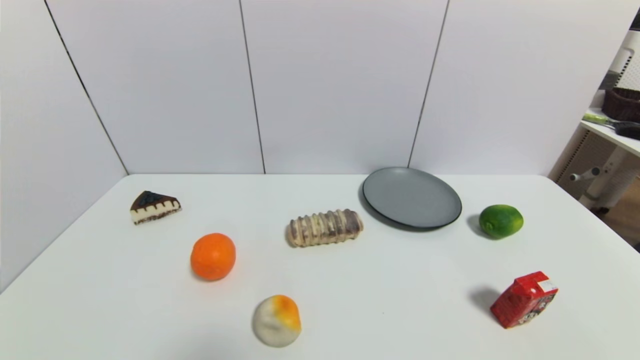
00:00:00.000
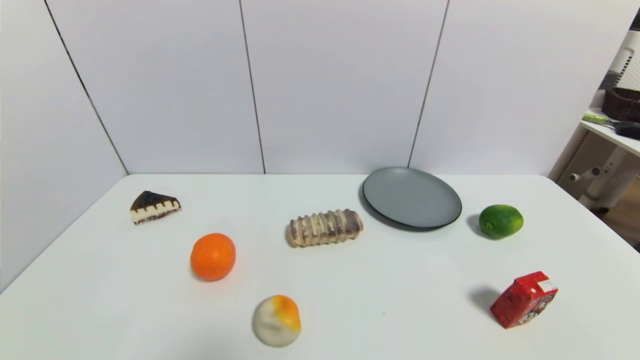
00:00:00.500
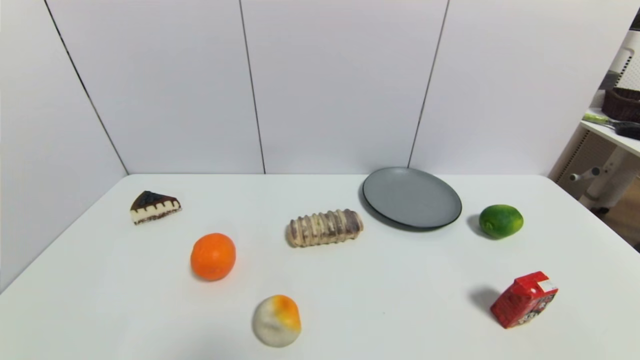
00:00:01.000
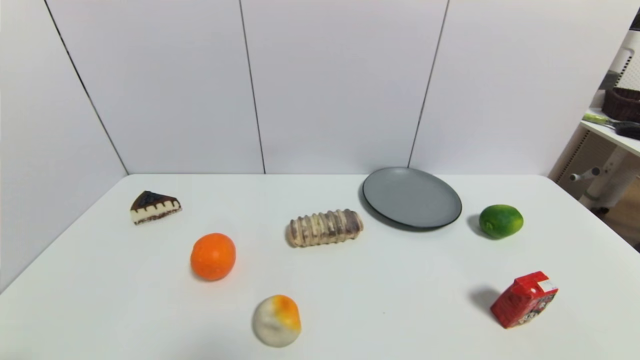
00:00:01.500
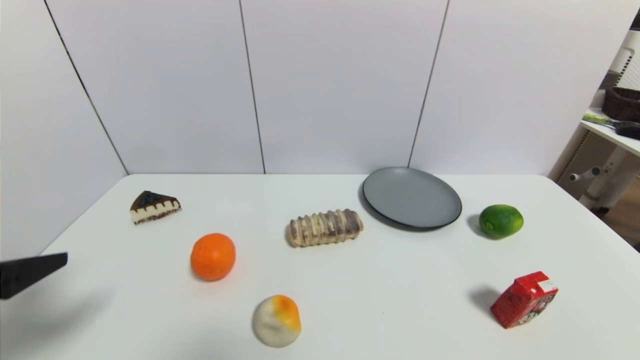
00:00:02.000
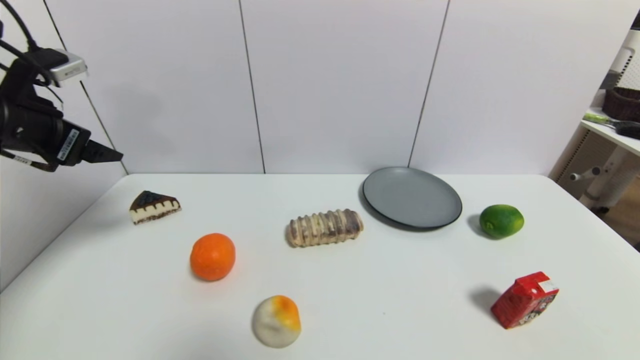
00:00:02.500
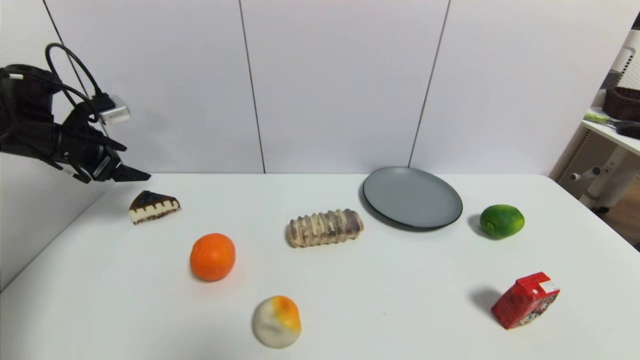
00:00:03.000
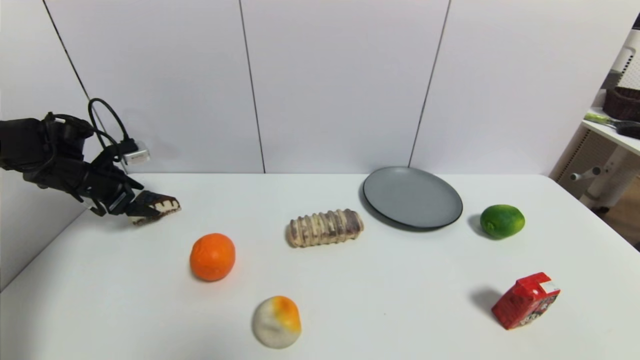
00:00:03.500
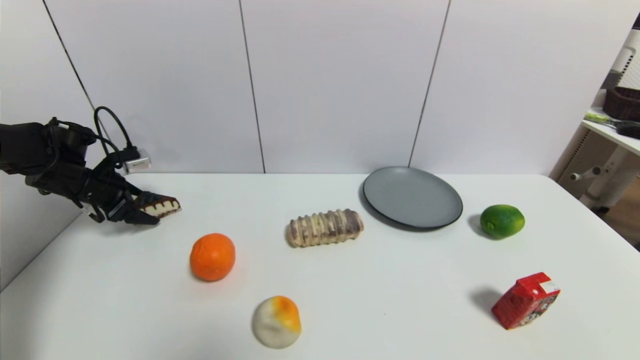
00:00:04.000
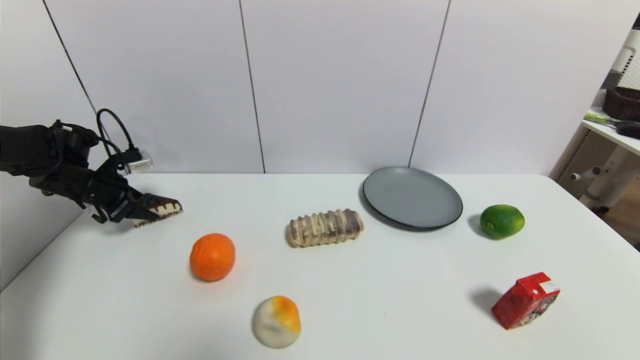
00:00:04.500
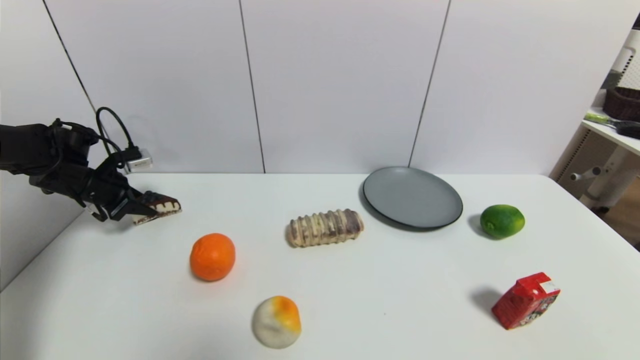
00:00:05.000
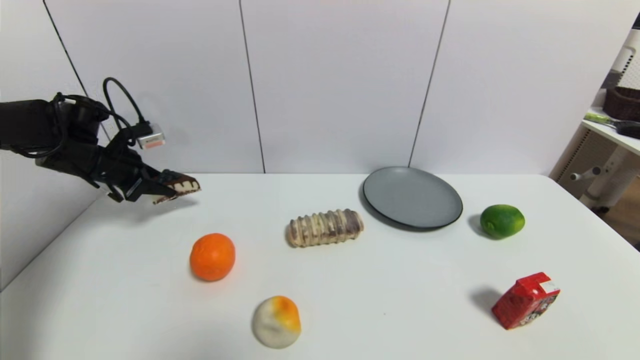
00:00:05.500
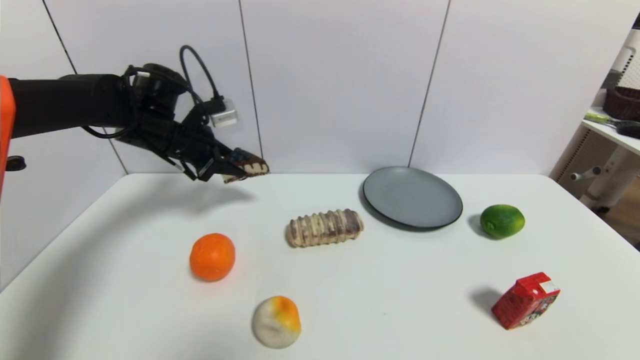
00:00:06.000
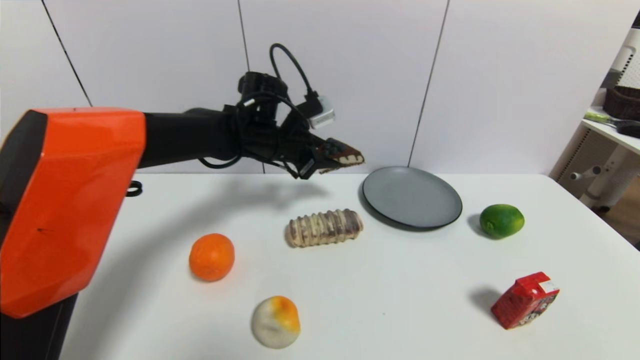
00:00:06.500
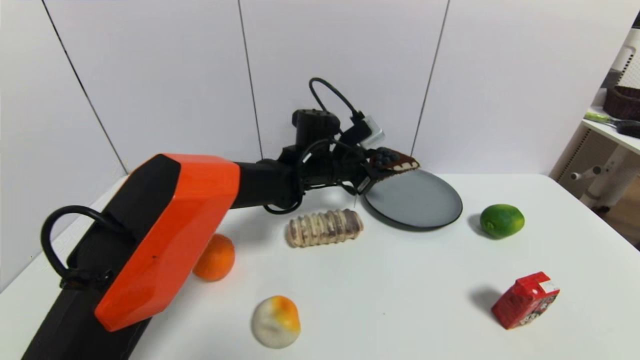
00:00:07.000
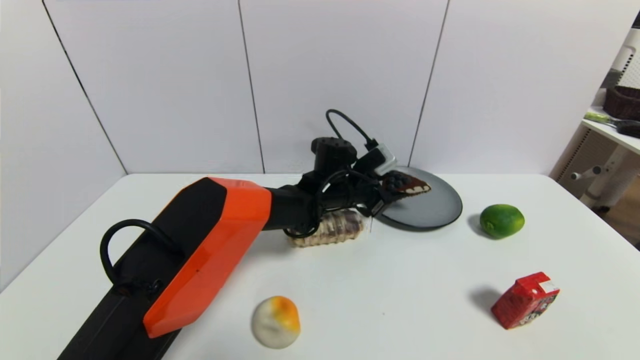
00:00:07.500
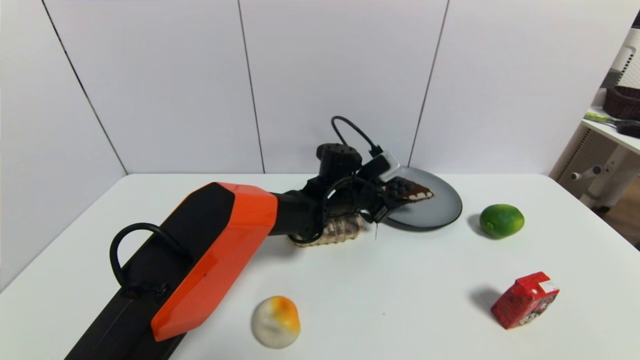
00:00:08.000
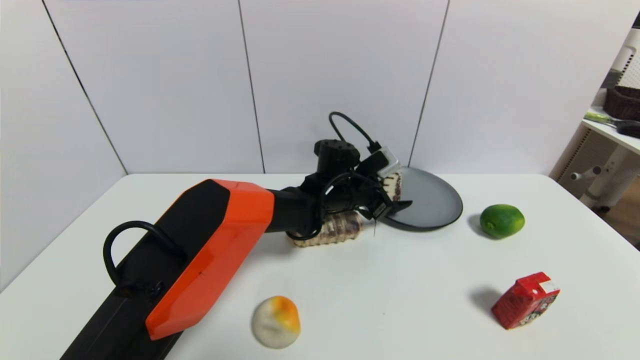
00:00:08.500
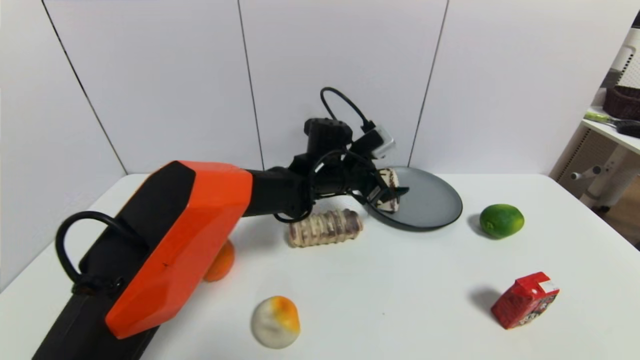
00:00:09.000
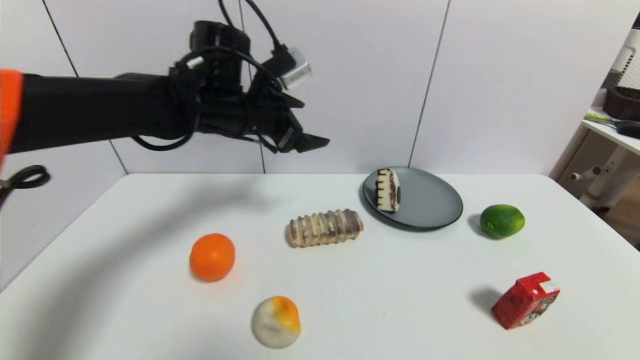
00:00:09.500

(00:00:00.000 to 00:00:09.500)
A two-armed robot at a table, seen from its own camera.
Task of the whole recording: use a gripper to pick the target object and place on the gray plate.
Step, 00:00:00.000 - 00:00:04.000: Grasp the chocolate cake with the left gripper.
Step, 00:00:04.500 - 00:00:08.500: Place the chocolate cake on the gray plate with the left gripper.
00:00:00.000 - 00:00:02.000: The left gripper travels upward and forward by some 20 cm.
00:00:02.000 - 00:00:04.000: The left gripper travels forward by some 30 cm.
00:00:04.000 - 00:00:05.500: The left gripper moves to the right, about 5 cm, and closes up.
00:00:05.500 - 00:00:07.500: The left gripper is displaced to the right by roughly 40 cm.
00:00:07.500 - 00:00:09.500: The left gripper goes about 25 cm to the left and upward, and opens its fingers.

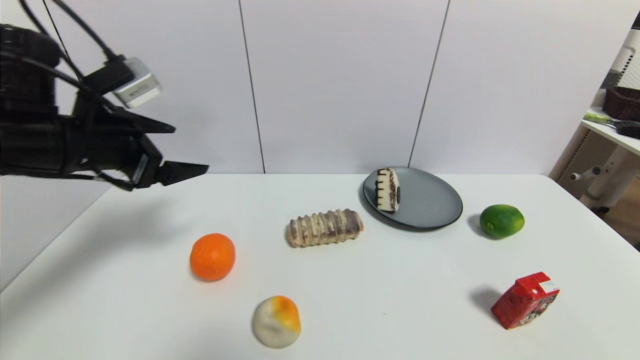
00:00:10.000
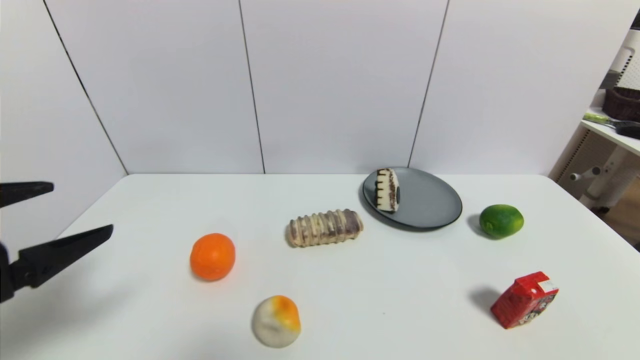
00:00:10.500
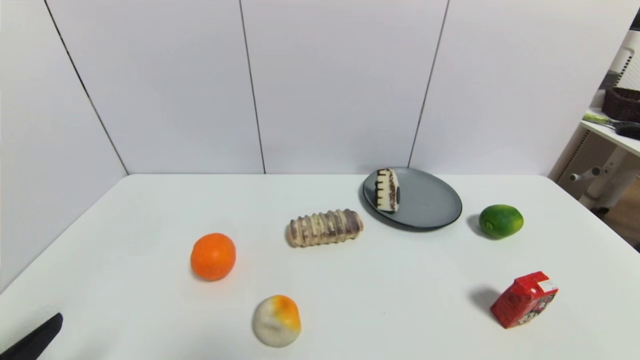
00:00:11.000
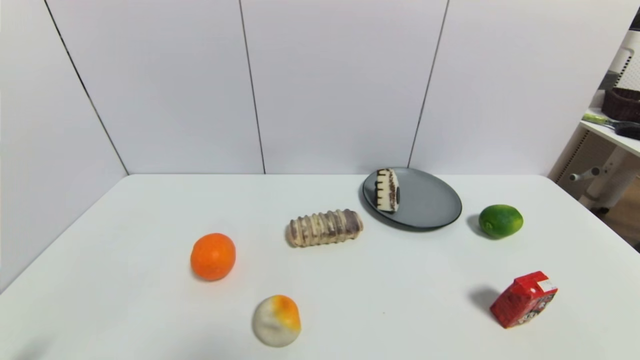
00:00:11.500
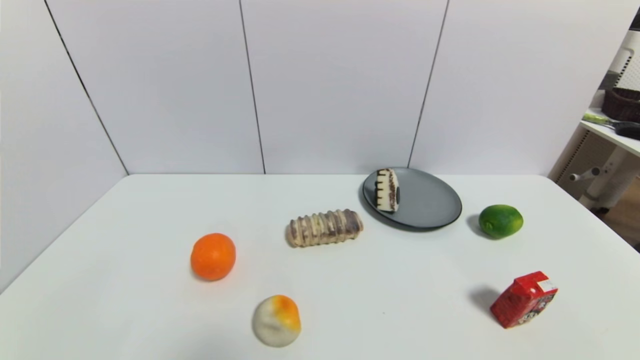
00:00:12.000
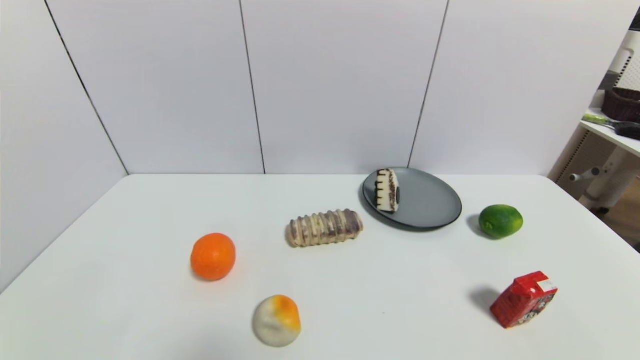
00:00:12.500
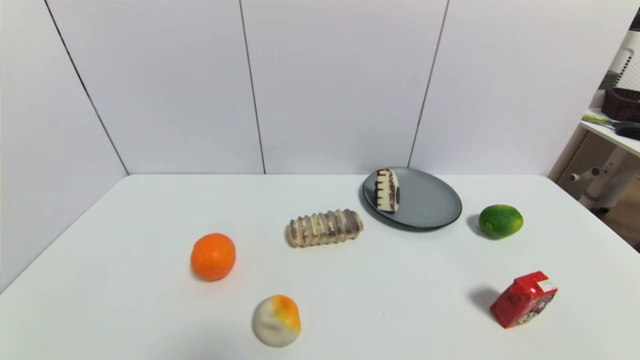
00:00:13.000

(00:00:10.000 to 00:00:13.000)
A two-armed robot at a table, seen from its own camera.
Task of the whole recording: use a gripper to pick the target object and place on the gray plate.
00:00:10.000 - 00:00:11.500: The left gripper shifts approximately 30 cm backward and downward.
